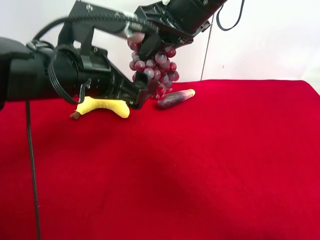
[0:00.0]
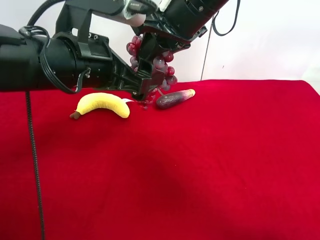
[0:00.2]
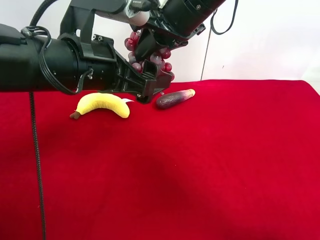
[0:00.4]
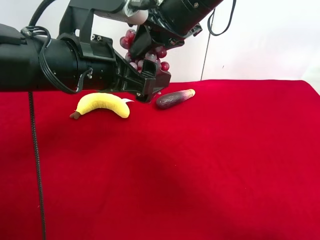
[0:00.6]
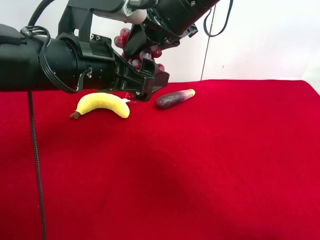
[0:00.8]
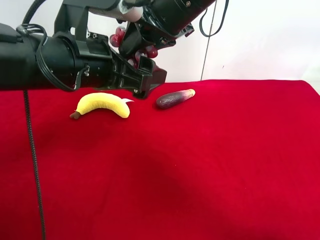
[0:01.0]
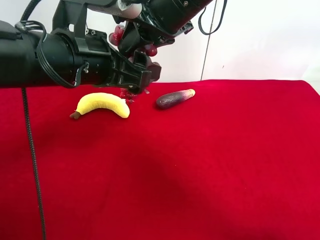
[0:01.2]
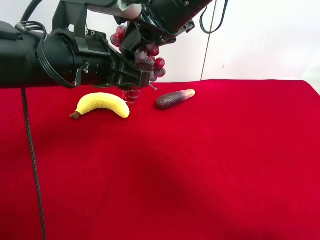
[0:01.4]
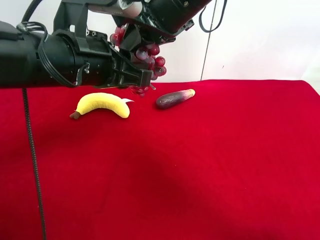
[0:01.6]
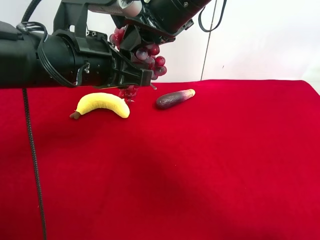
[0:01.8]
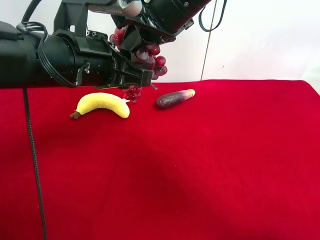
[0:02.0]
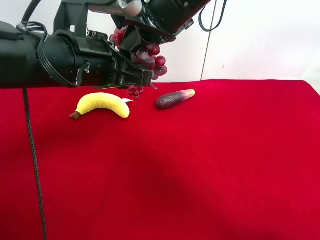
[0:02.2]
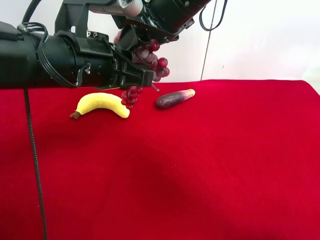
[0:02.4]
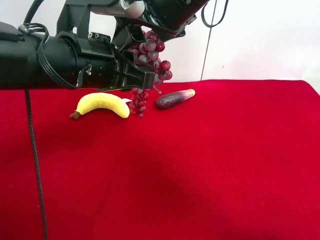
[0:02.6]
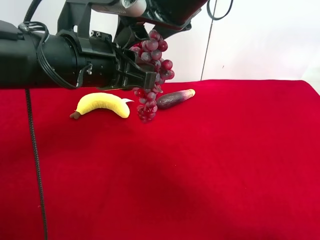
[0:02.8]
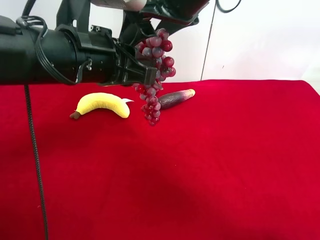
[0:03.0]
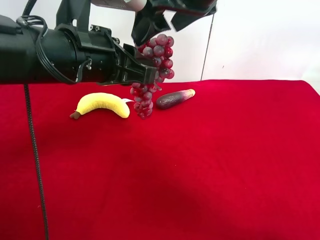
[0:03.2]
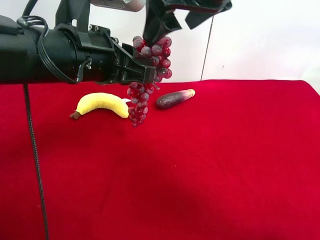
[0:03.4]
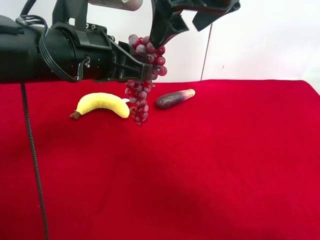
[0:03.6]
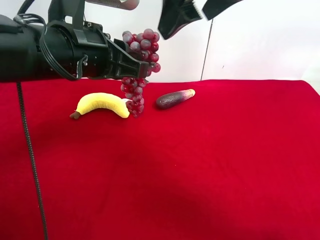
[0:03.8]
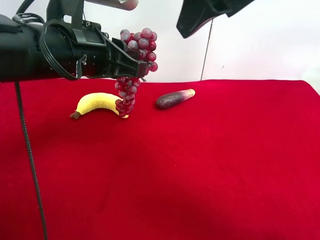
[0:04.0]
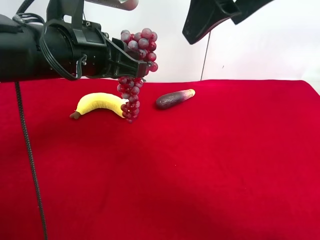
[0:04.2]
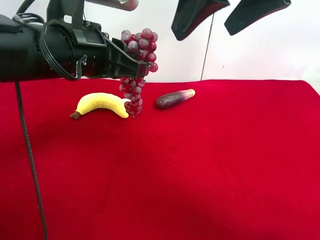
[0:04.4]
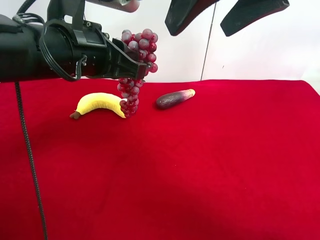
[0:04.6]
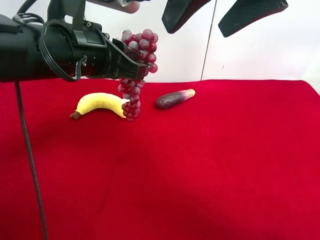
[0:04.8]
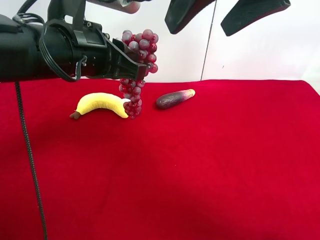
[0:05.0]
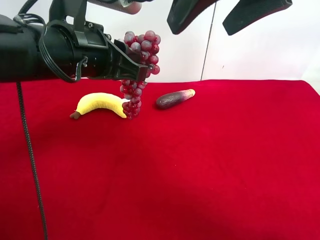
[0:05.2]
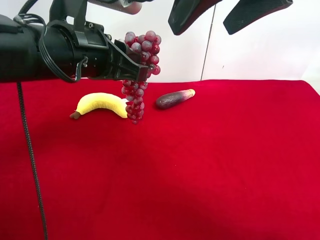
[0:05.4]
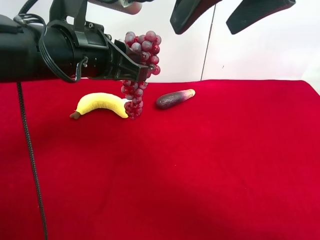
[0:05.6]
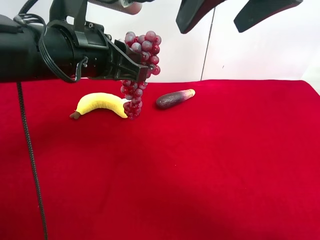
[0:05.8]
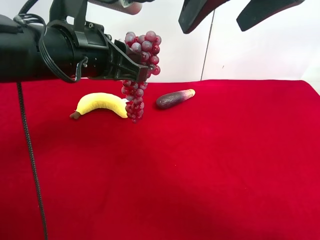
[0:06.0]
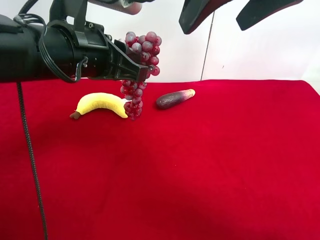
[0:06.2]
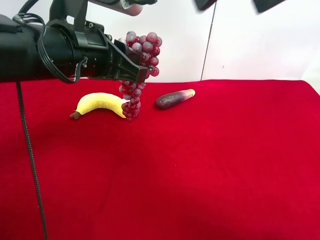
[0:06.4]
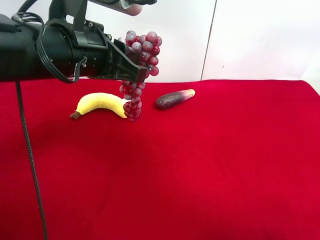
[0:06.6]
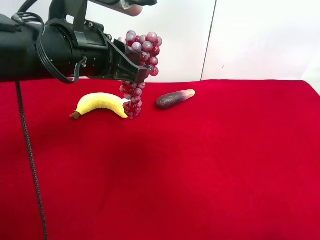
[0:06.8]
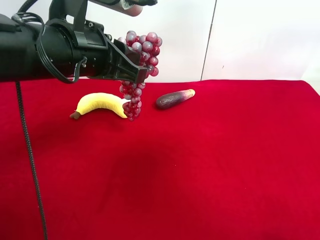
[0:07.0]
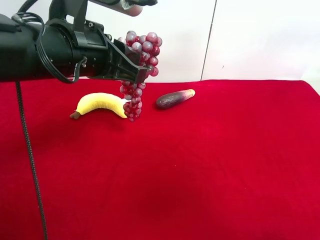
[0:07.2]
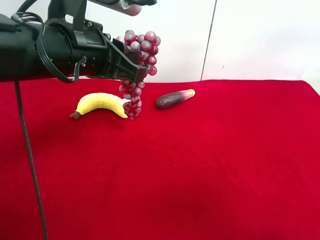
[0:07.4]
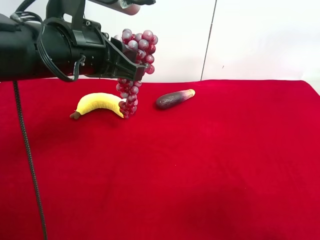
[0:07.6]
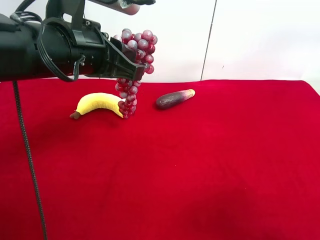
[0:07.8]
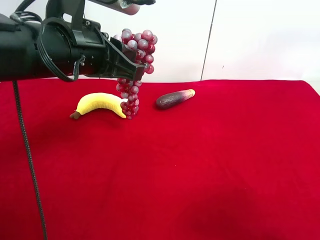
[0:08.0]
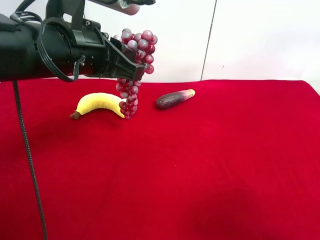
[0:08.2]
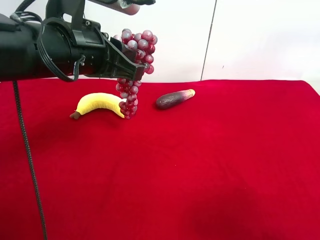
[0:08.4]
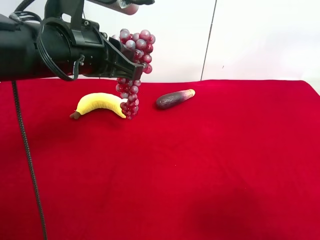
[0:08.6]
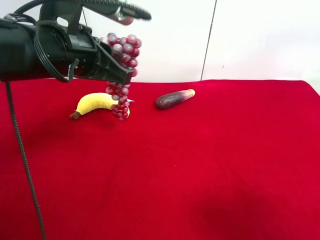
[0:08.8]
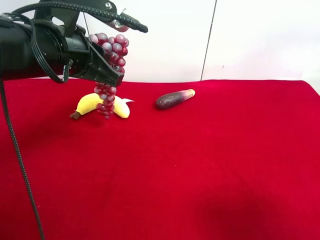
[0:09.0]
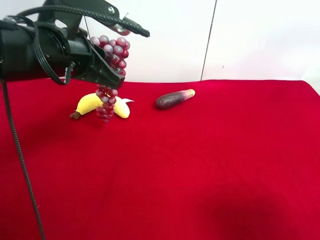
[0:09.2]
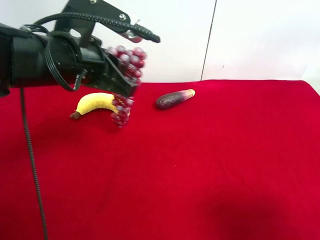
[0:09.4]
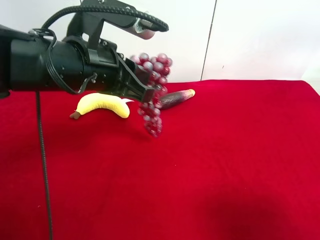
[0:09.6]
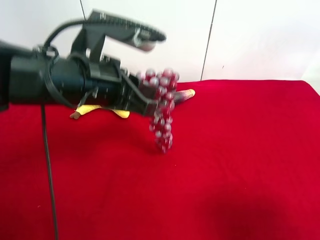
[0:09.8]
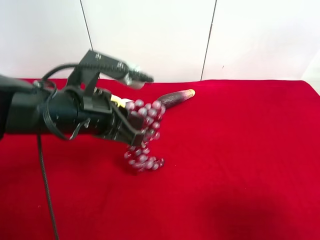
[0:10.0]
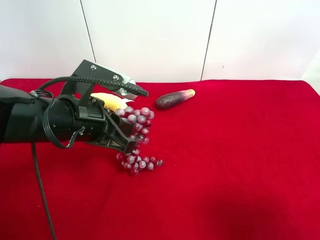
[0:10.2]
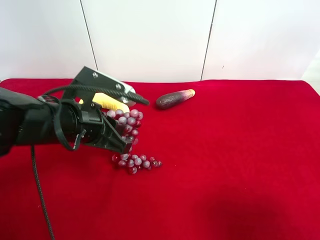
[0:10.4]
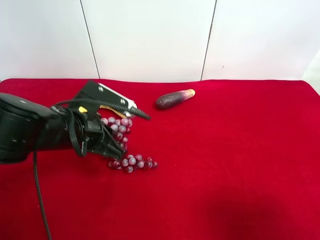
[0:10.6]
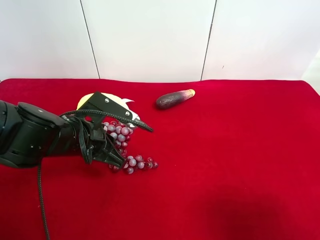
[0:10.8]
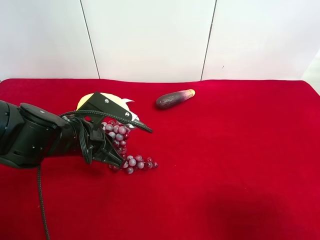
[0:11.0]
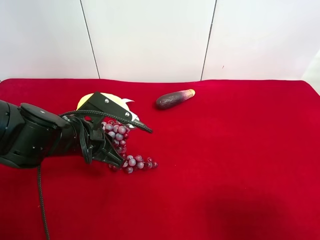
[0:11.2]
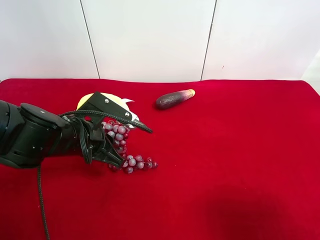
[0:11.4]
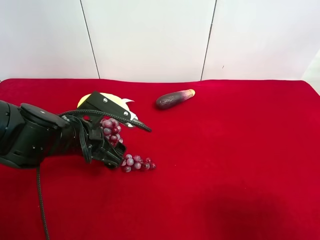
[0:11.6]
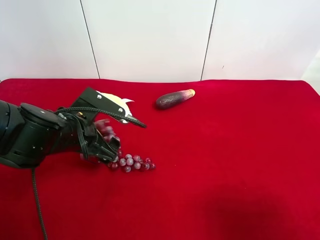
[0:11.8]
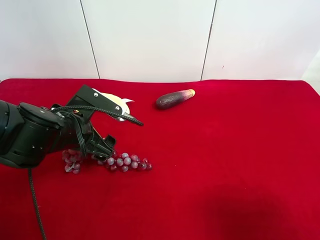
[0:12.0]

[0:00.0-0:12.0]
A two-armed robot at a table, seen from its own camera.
Task of the whole recording: use the right gripper to pick up the item and transfer it from the right gripper to the left gripper.
Step, 0:00.0 to 0:02.8: Pass the grape to the left gripper.
0:00.0 to 0:01.6: The left gripper closes up.
0:01.6 to 0:03.0: The right gripper opens its fingers.
0:03.0 to 0:04.4: The right gripper heads backward, to the right and upward, covering roughly 10 cm.
0:04.4 to 0:06.0: The grippers make only small movements.
0:06.0 to 0:07.6: The right gripper is displaced backward, to the right and downward by some 30 cm.
0:09.0 to 0:10.4: The left gripper heads downward, covering roughly 10 cm.
0:10.4 to 0:12.0: The left gripper opens up.

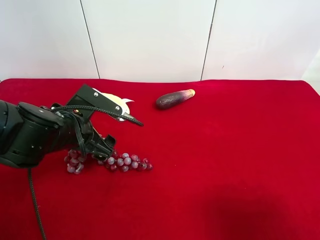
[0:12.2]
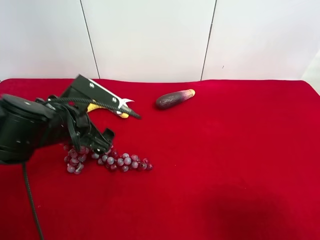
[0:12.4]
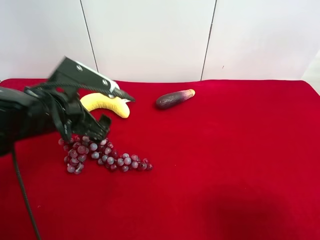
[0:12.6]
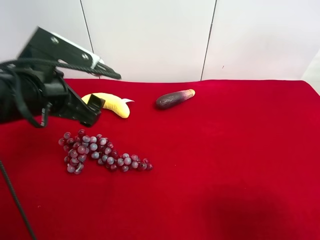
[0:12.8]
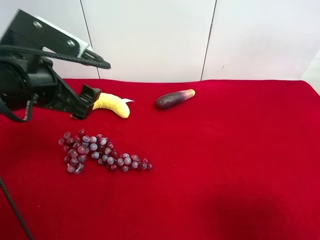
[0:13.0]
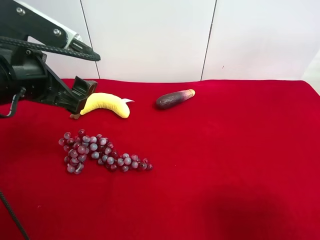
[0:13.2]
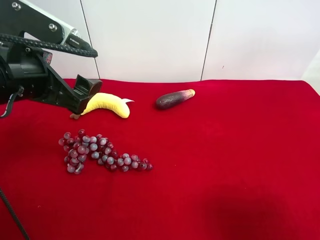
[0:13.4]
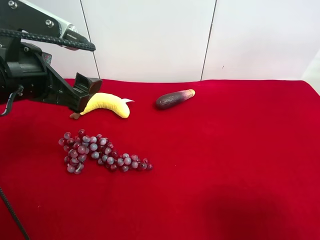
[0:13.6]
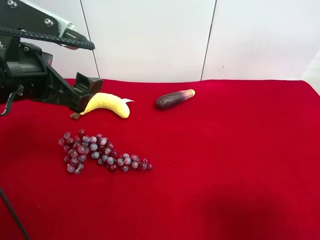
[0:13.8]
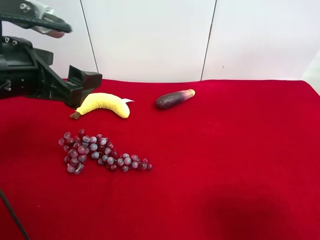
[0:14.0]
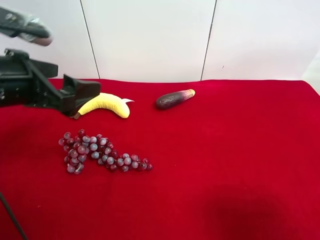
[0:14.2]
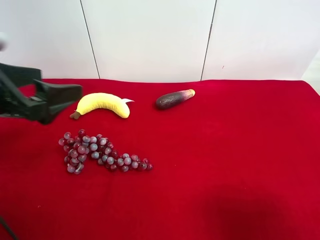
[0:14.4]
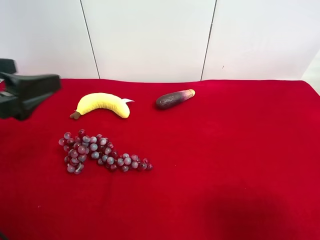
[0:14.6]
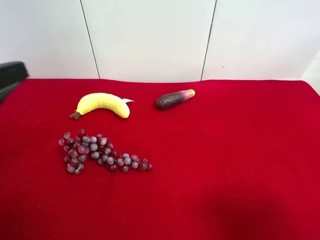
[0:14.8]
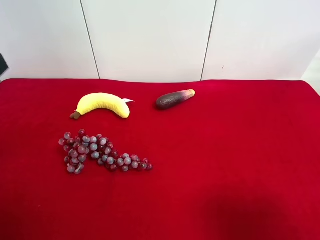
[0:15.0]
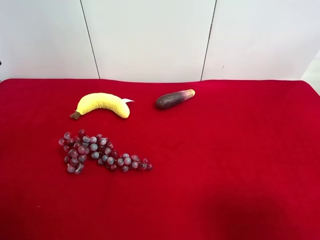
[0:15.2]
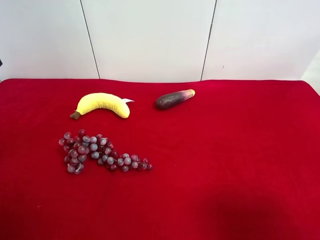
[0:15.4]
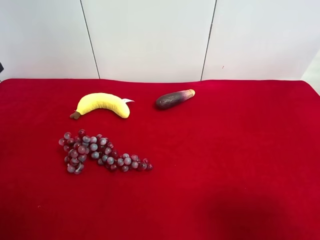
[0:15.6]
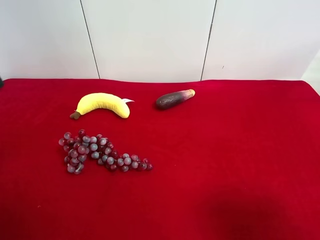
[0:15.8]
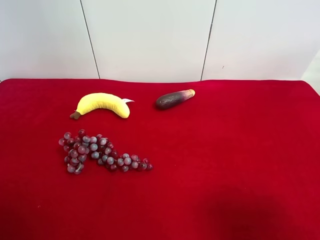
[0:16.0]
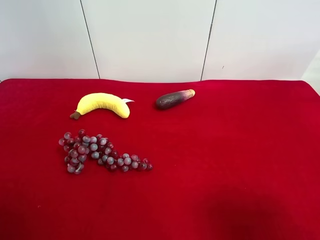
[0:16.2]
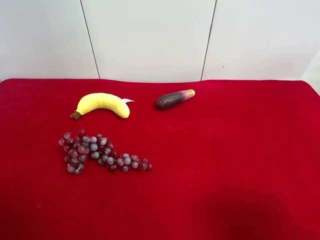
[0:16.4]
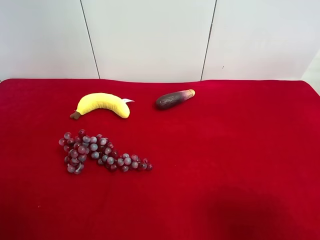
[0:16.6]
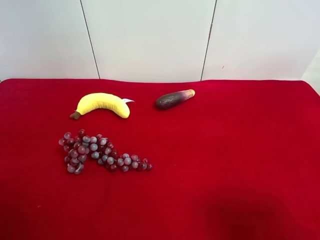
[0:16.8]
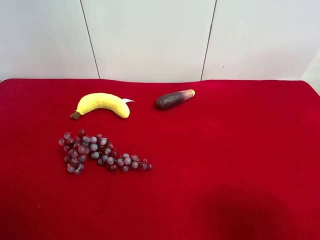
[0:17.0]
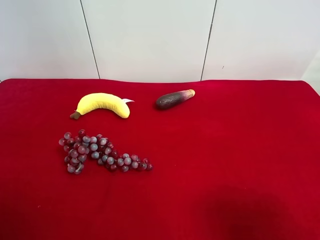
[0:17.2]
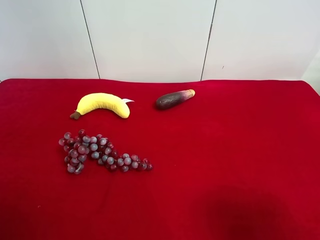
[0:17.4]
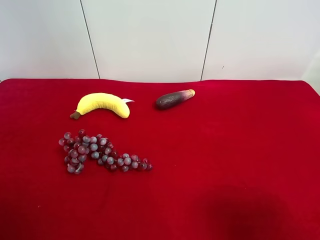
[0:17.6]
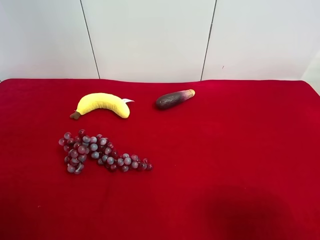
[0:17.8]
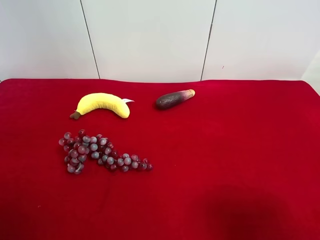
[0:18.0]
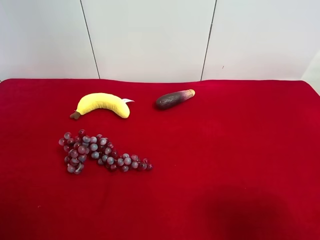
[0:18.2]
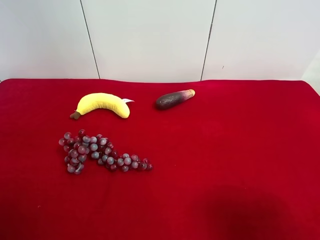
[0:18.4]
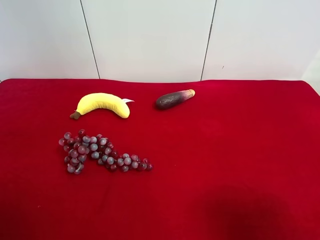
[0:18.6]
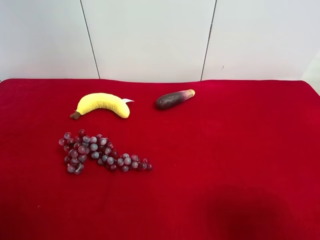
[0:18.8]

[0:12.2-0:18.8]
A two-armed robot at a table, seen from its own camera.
Task of the whole recording: use the right gripper to pick up the item and transfer it from the right gripper to the left gripper.
0:12.2 to 0:13.8: The left gripper moves upward, some 10 cm.
0:13.8 to 0:15.4: The left gripper shifts roughly 15 cm to the left and backward.

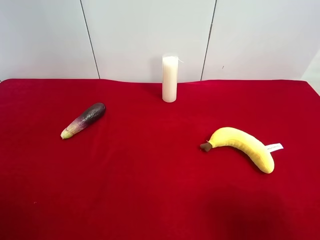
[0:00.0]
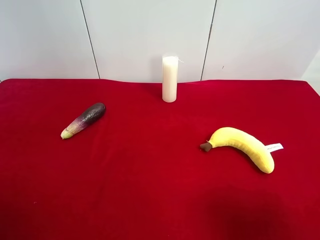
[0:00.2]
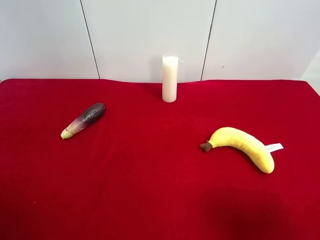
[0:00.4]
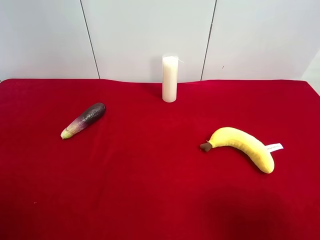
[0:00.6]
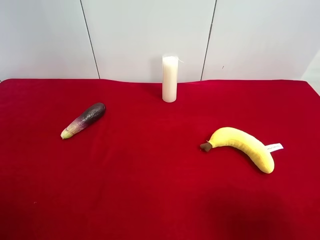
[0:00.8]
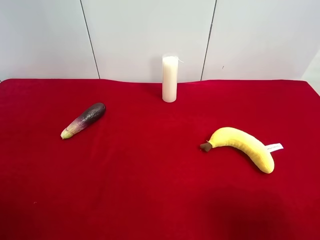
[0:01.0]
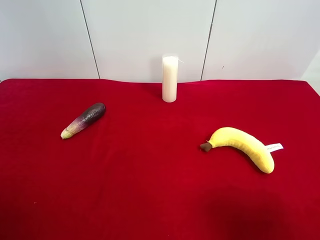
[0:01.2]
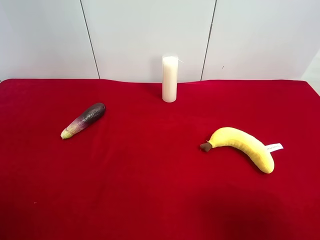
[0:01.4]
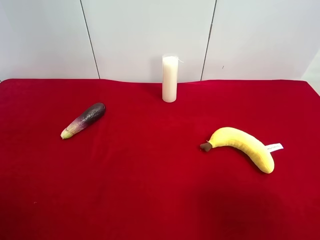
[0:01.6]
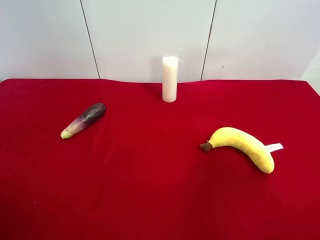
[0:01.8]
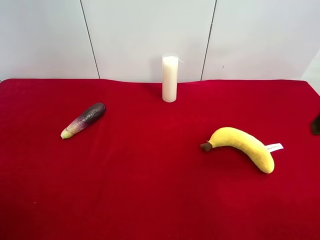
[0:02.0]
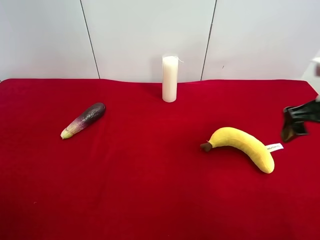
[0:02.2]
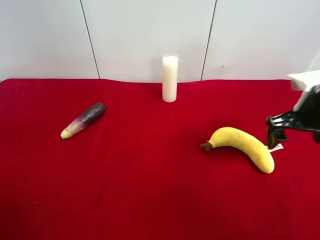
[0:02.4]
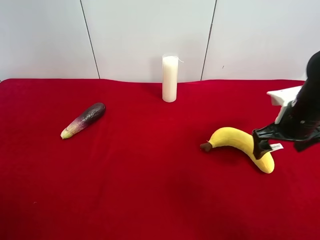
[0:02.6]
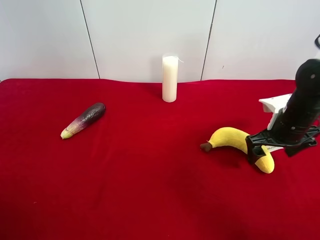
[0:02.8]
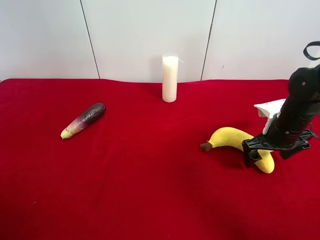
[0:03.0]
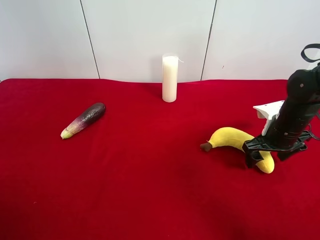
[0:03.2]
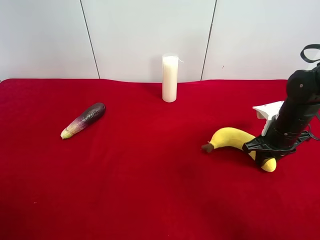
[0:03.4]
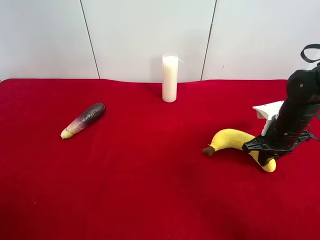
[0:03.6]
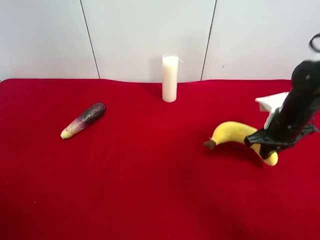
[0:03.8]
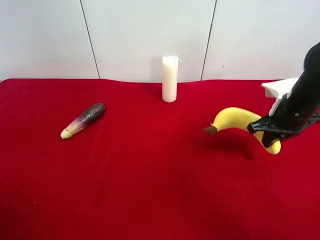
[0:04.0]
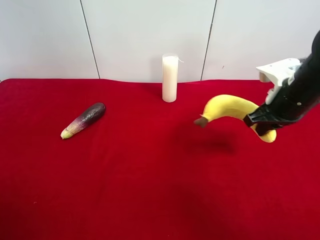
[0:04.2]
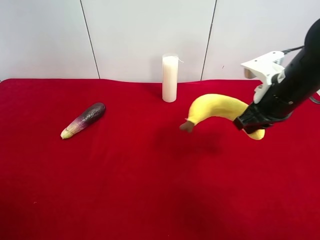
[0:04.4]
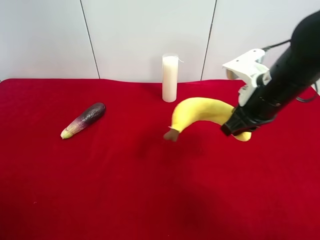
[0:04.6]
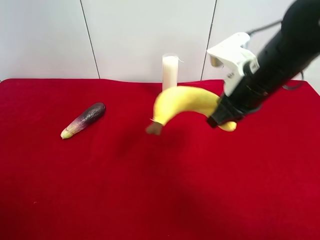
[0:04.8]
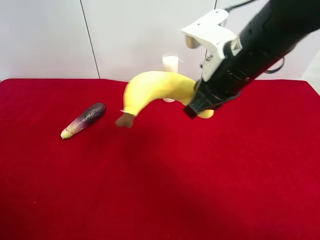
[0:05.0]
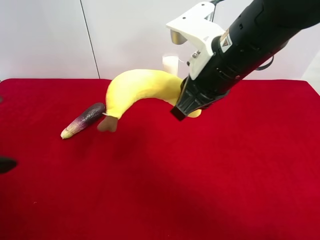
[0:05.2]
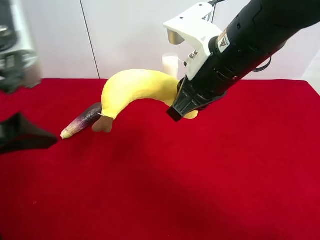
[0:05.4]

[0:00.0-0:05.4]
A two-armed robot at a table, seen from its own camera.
Task of the whole recording: use the right gripper to pick up the item and transfer it from the right gripper to the left gripper.
Step, 0:00.0 to 0:03.4: Use the right gripper to grab the plush banana on the right side of the table.
0:01.4 to 0:02.8: The right gripper travels forward and downward by some 30 cm.
0:02.8 to 0:04.0: The right gripper closes its fingers.
0:04.0 to 0:05.4: The left gripper shifts about 20 cm forward, to the right and upward. Meanwhile the right gripper shifts approximately 20 cm to the left and upward.
